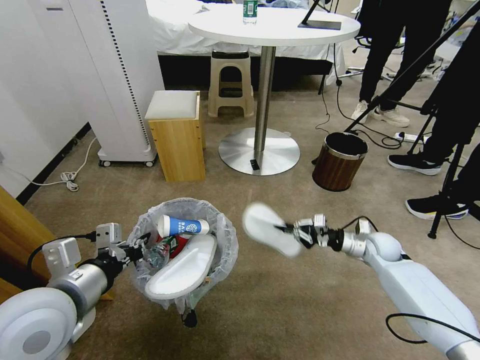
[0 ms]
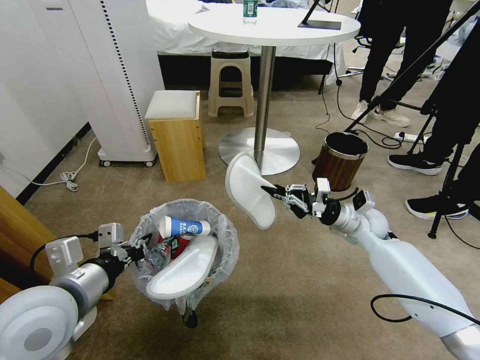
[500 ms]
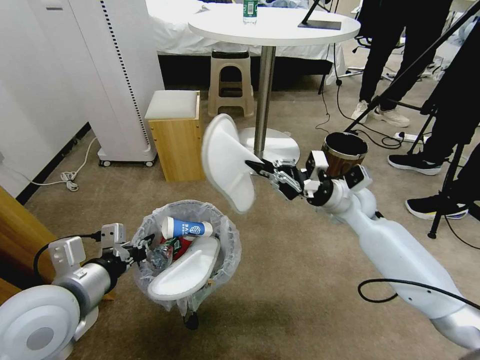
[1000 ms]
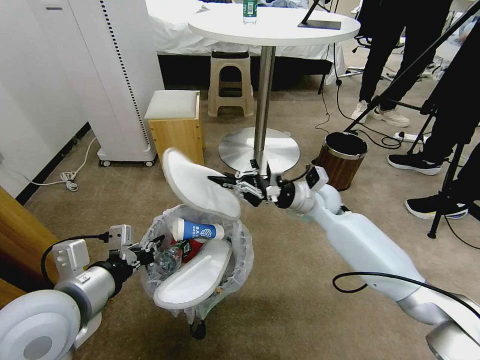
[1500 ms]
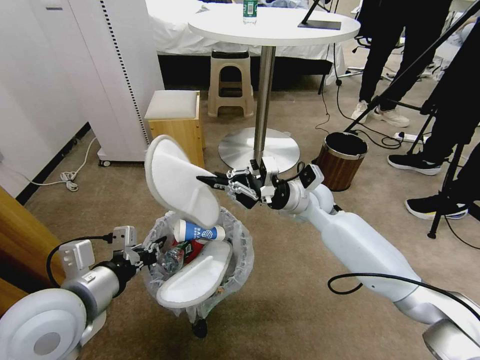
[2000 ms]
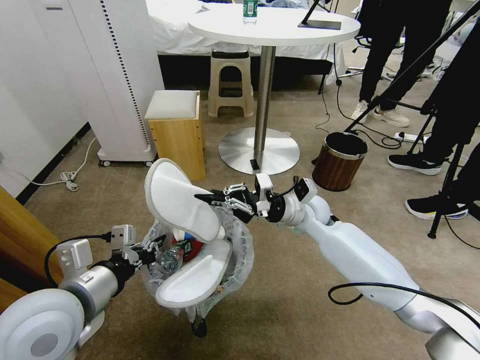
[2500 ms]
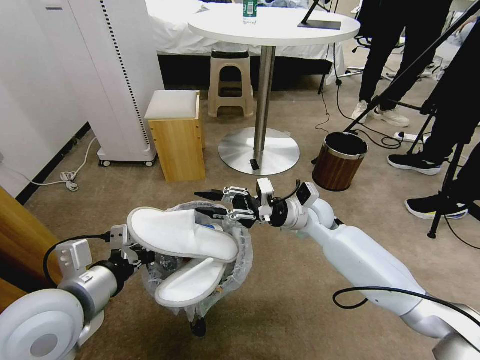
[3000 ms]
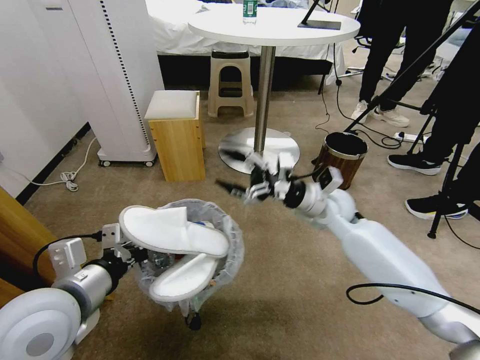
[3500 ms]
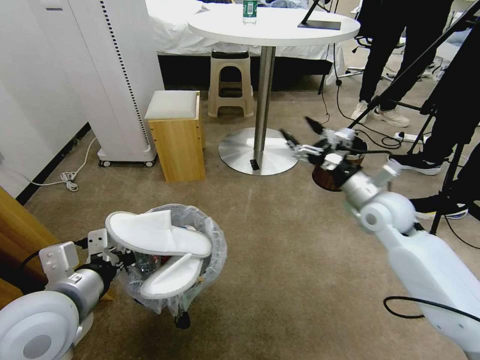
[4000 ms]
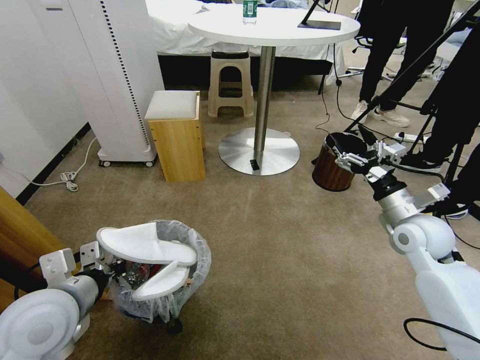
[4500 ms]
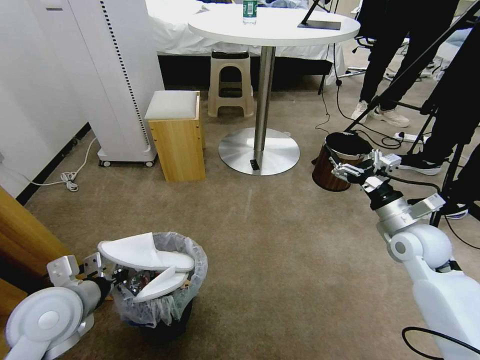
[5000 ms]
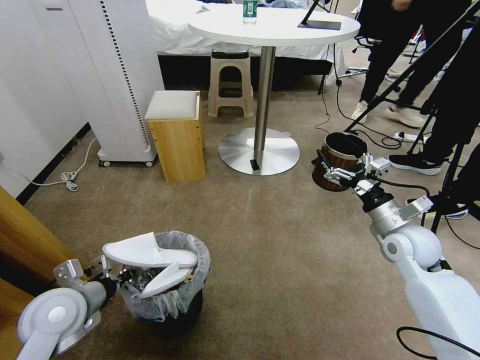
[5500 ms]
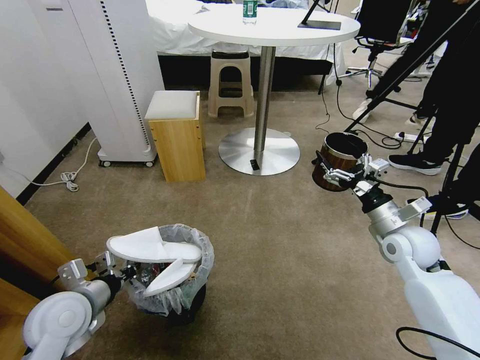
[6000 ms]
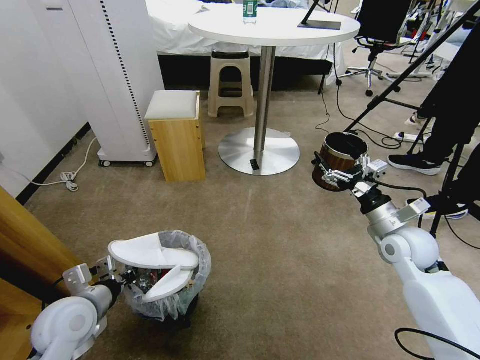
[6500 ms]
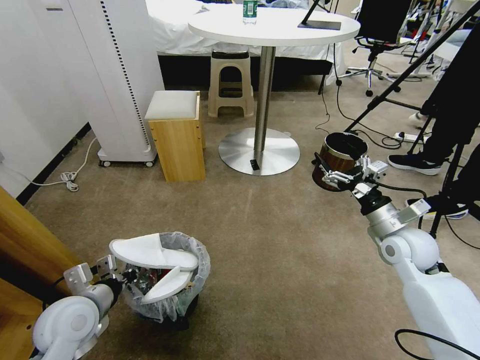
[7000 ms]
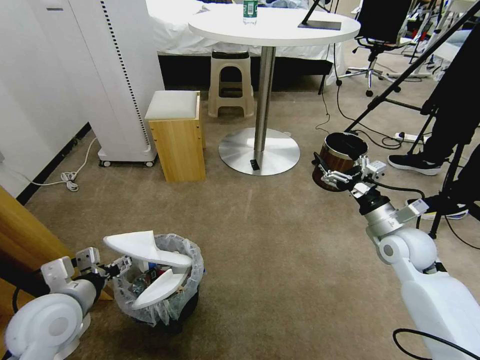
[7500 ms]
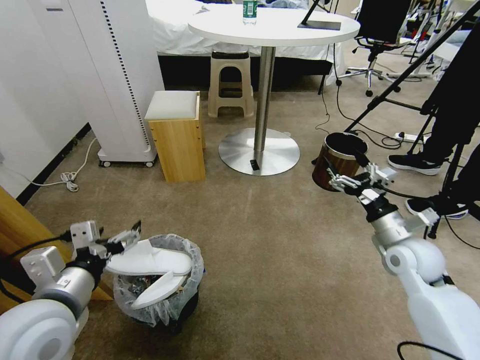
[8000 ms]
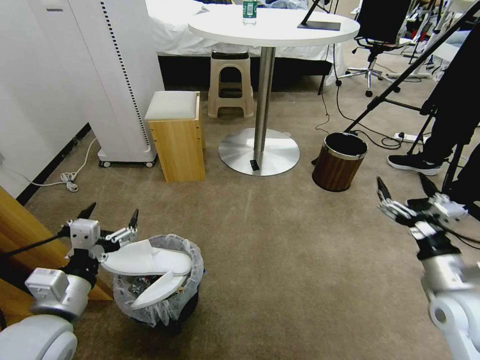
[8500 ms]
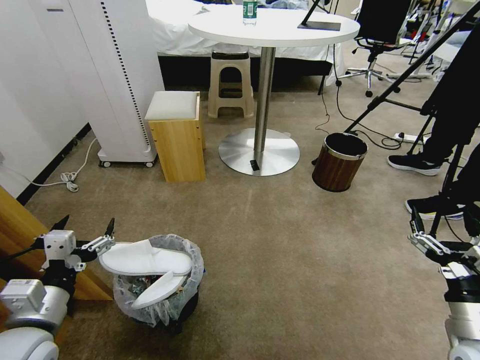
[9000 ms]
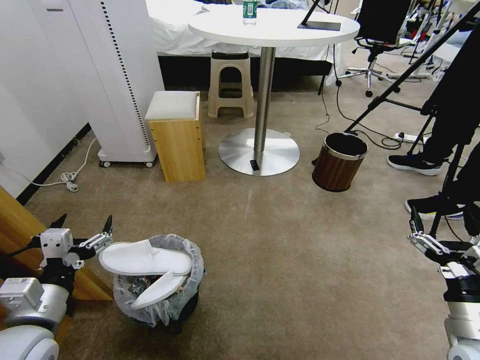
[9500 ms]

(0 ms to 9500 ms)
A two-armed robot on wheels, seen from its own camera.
Task of the whole recording: Pick up the trash bin and place the garbage on the floor into it.
0 ms - 2000 ms: The right gripper is displaced to the left and upward by approximately 25 cm.
2000 ms - 4000 ms: The right gripper goes approximately 15 cm to the right and backward, and opens its fingers.
4000 ms - 5500 ms: The right gripper moves downward, roughly 5 cm. The left gripper heads downward and to the left, covering about 10 cm.
5500 ms - 7500 ms: The left gripper opens.
7500 ms - 9500 ms: The right gripper shifts some 20 cm backward, while the left gripper is displaced backward by about 5 cm.
